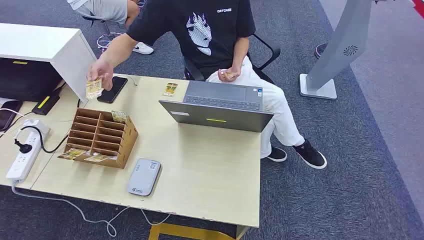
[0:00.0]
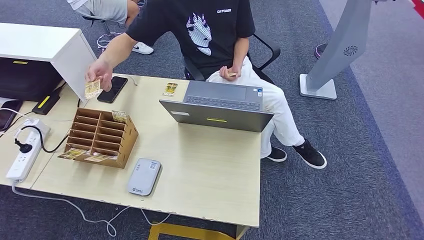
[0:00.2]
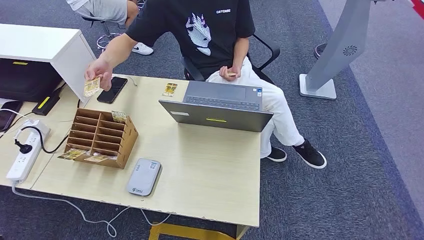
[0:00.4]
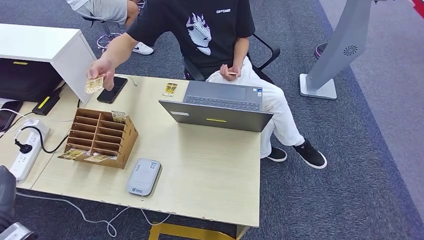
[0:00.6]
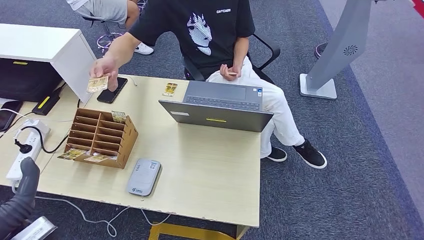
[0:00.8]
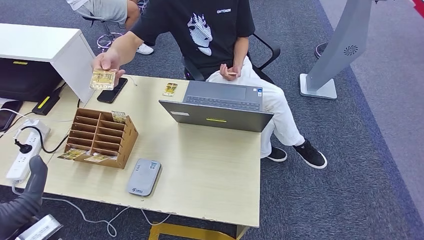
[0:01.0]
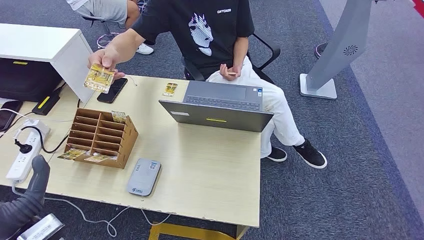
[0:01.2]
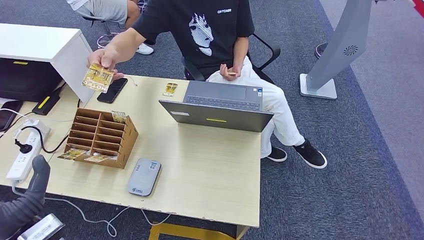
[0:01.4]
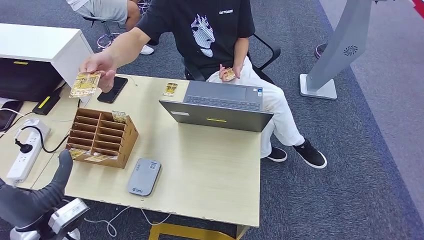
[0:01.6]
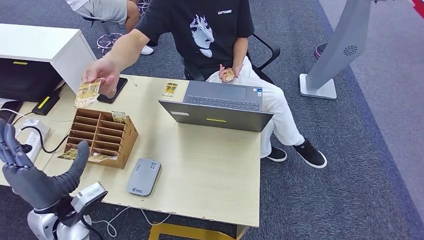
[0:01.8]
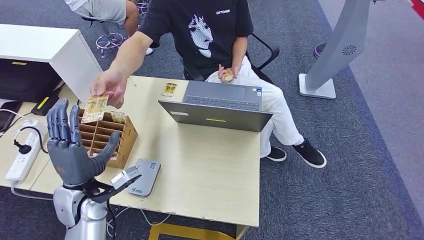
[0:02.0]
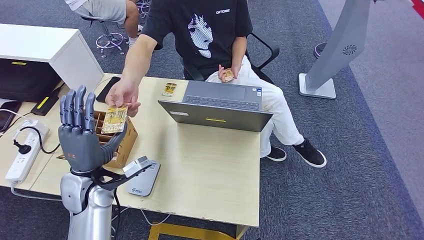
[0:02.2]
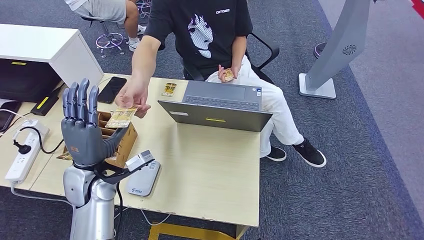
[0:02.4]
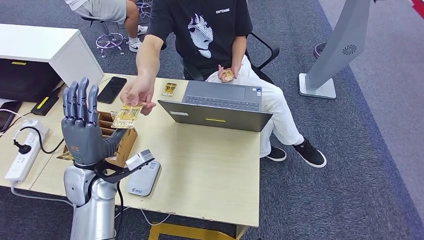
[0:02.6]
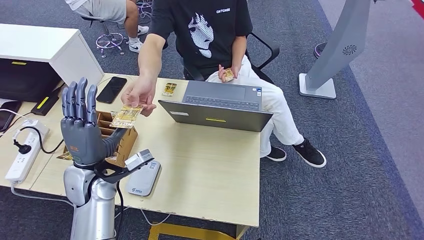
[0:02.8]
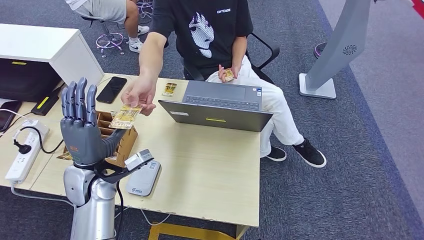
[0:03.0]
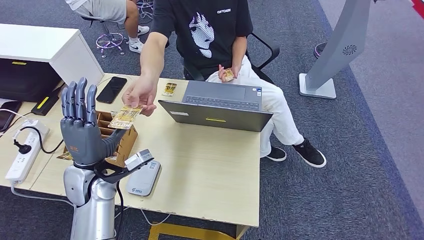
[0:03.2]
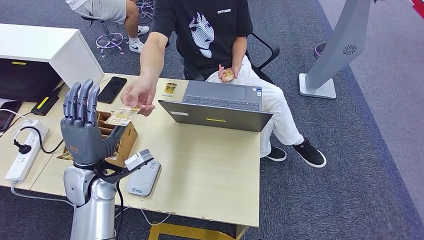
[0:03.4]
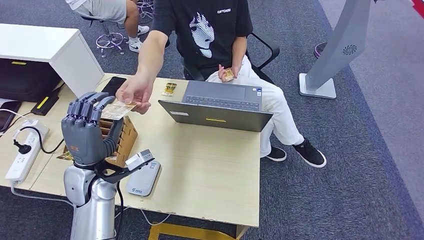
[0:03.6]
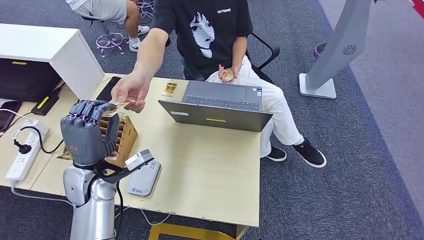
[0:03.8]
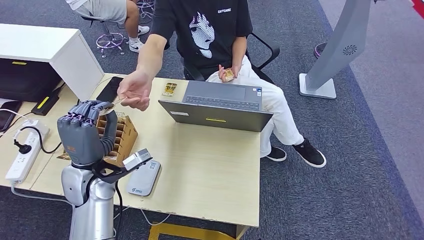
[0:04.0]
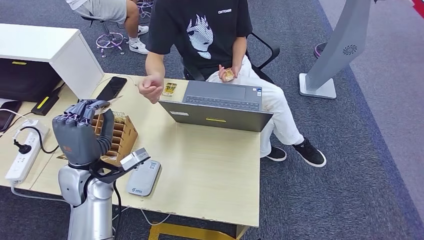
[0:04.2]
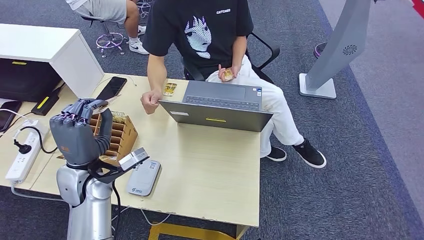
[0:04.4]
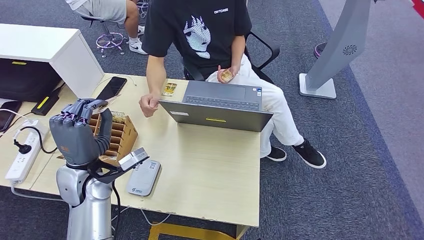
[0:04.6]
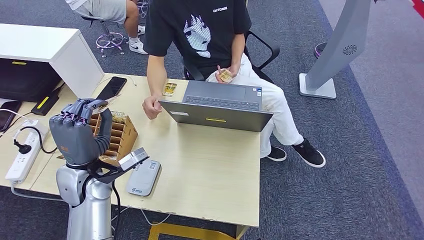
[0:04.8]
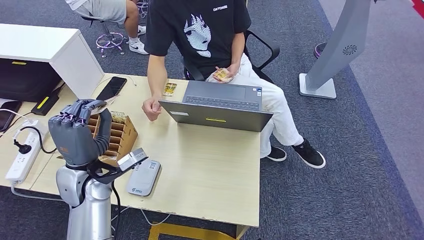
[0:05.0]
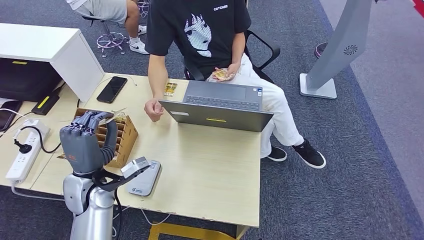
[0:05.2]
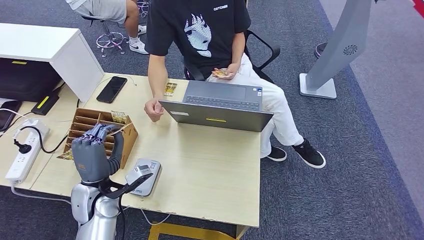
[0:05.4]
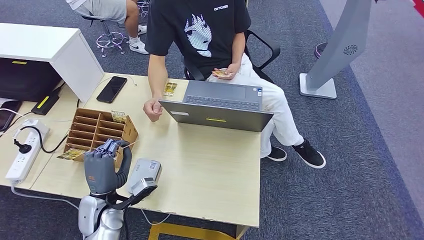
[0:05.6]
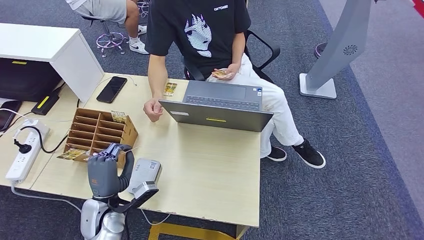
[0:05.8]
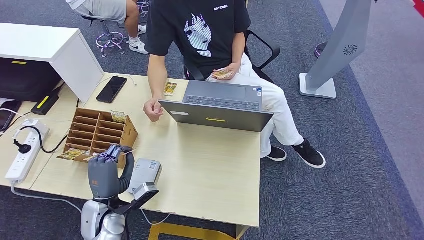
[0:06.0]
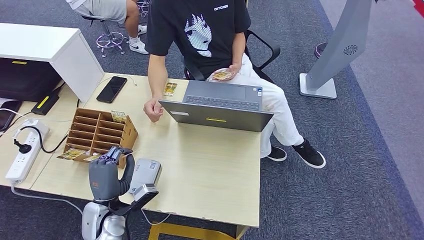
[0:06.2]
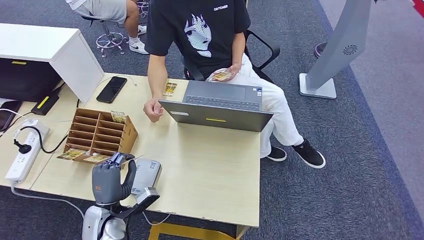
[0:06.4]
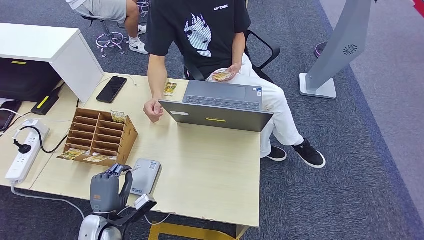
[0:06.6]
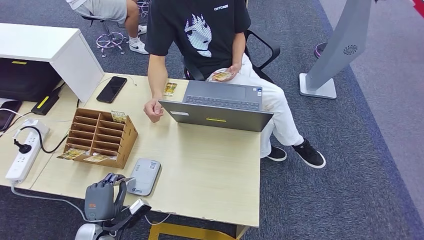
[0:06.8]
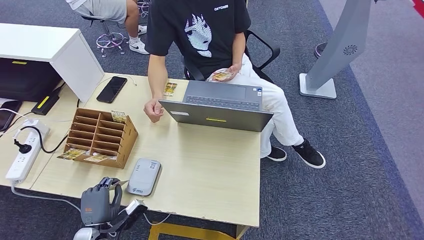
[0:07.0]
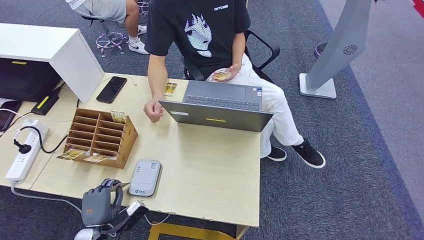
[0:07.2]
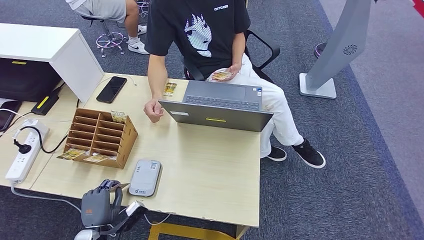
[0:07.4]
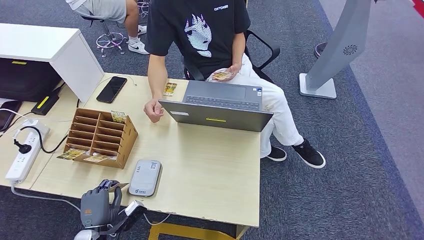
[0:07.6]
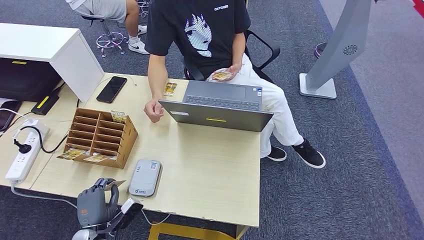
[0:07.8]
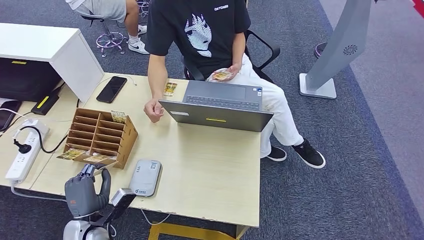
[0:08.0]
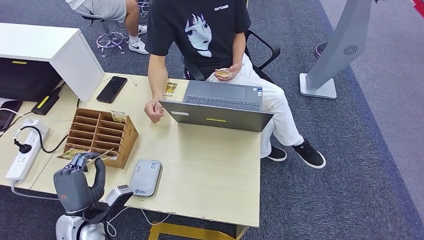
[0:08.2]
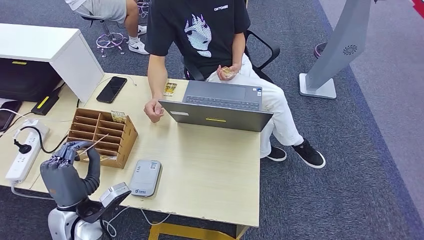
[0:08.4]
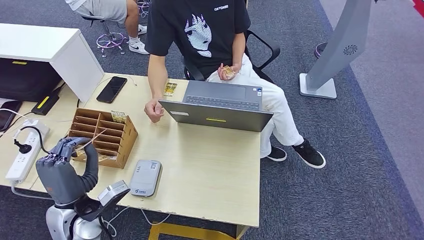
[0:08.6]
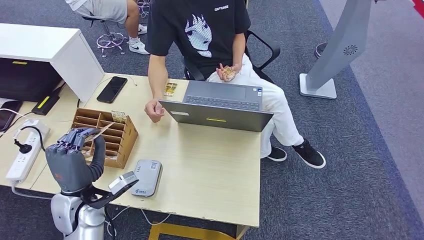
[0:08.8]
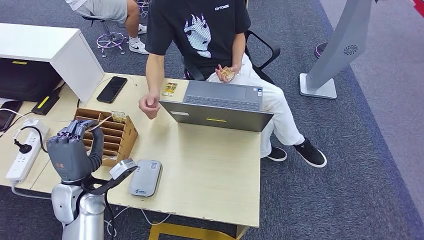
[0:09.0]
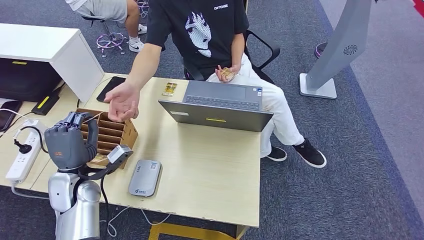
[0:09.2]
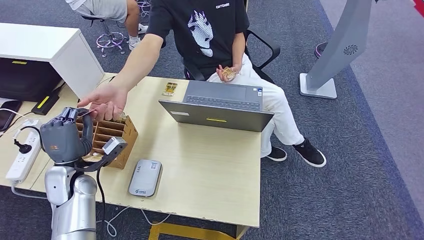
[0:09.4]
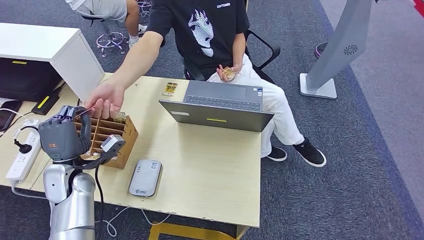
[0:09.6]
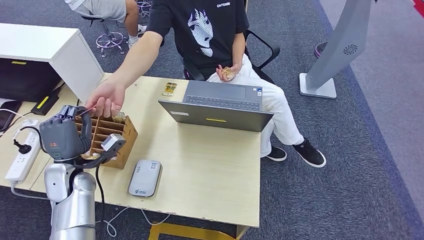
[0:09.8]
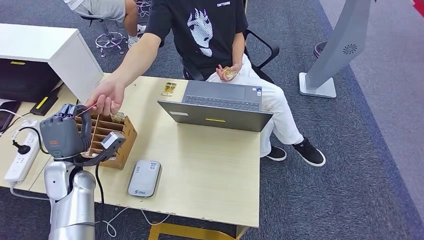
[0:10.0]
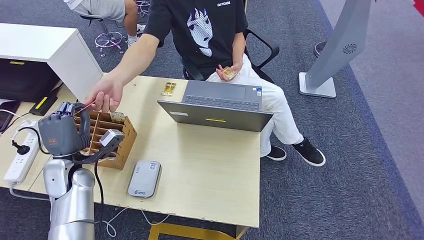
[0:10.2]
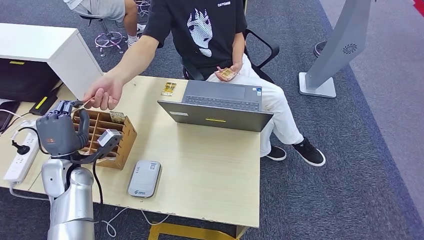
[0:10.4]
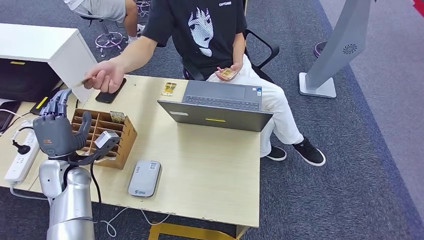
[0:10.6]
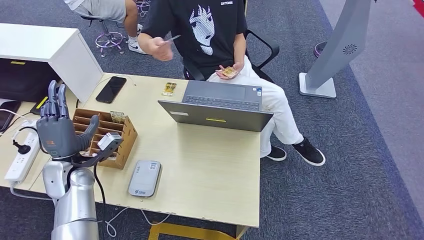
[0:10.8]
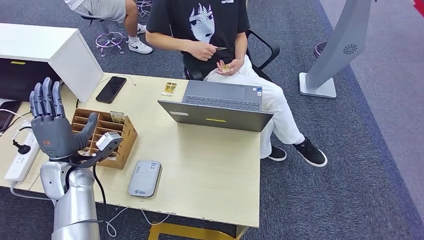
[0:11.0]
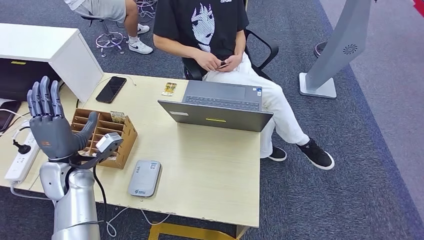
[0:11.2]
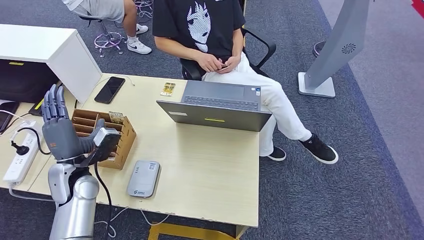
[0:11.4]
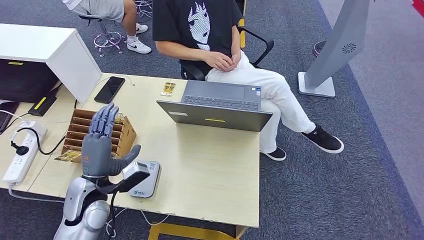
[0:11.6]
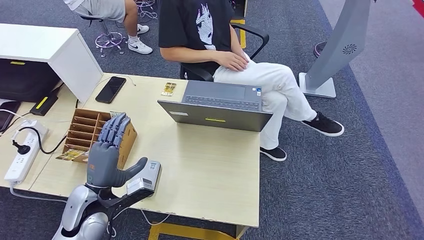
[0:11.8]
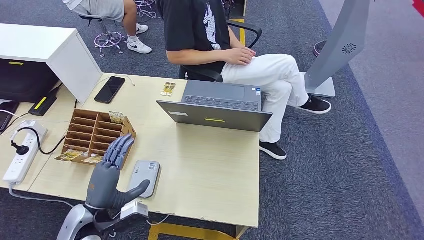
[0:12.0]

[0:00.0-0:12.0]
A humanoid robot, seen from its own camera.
Step, 0.0 to 5.0 s: Take the ID card from the person's hand.
Step, 5.2 to 6.8 s: Place the ID card on the card reader.
Step, 7.0 to 10.8 s: Hand the ID card to the person.
1.6 to 3.0 s: The left hand moves forward, some 15 cm.
3.0 to 4.4 s: Neither hand changes place.
4.4 to 6.0 s: The left hand moves downward and backward, some 15 cm.
6.0 to 7.6 s: The left hand is displaced downward and backward by about 10 cm.
7.6 to 9.0 s: The left hand shifts some 20 cm upward and forward.
9.0 to 10.4 s: The left hand heads to the left and forward, covering about 10 cm.

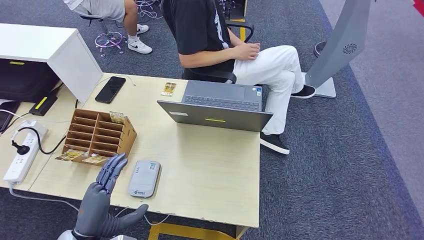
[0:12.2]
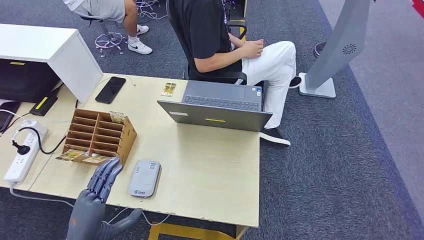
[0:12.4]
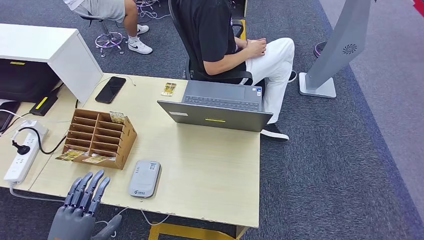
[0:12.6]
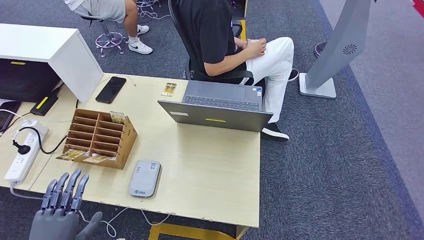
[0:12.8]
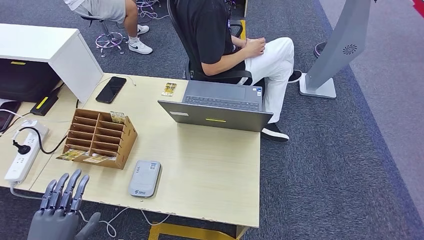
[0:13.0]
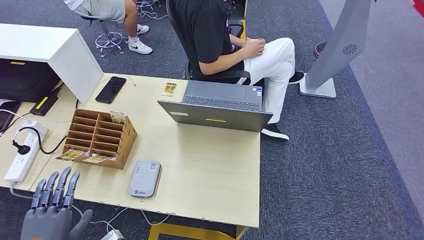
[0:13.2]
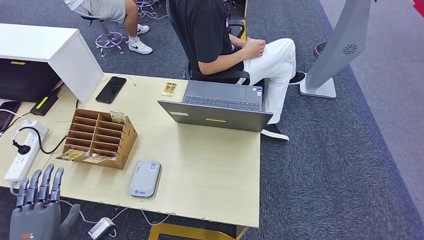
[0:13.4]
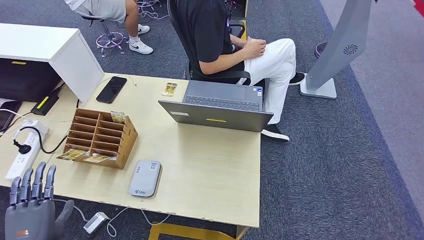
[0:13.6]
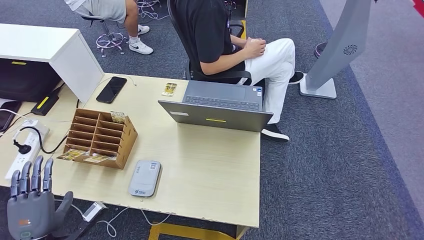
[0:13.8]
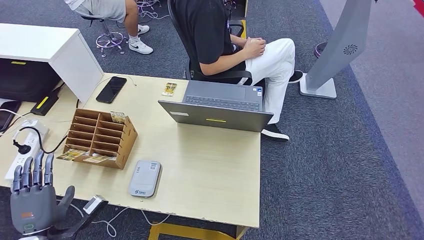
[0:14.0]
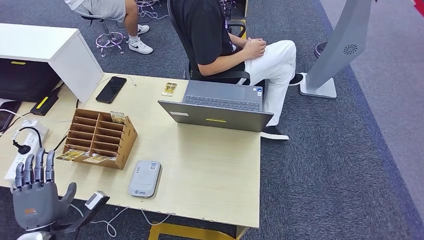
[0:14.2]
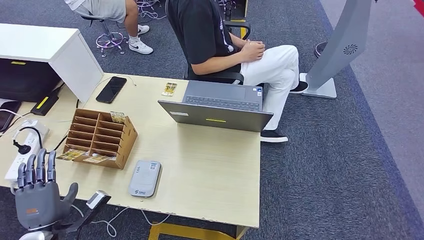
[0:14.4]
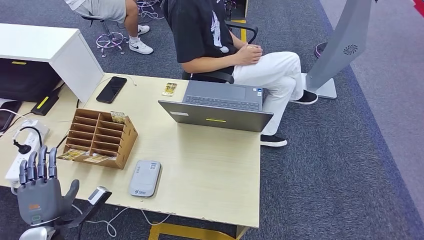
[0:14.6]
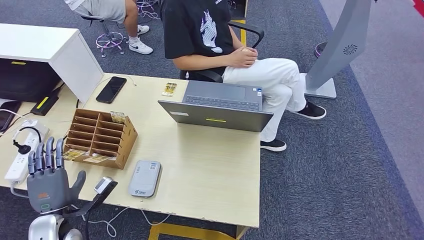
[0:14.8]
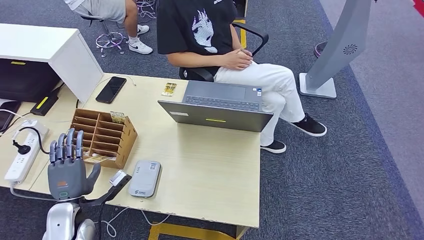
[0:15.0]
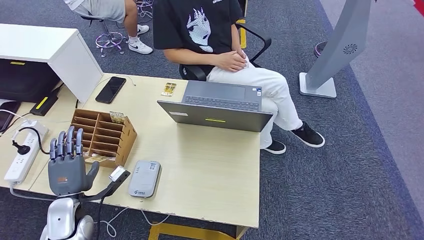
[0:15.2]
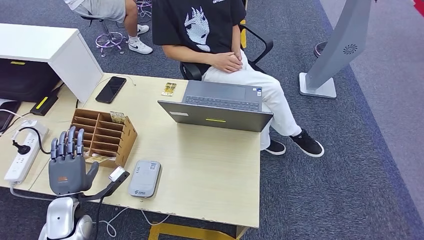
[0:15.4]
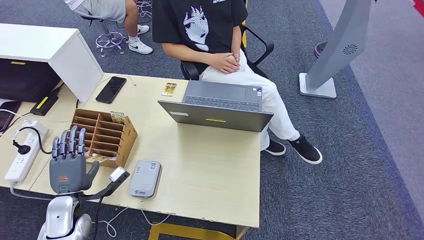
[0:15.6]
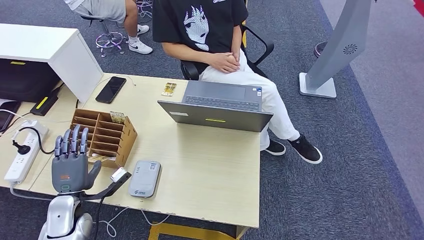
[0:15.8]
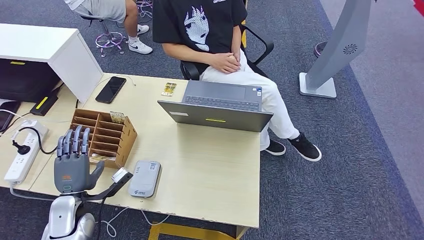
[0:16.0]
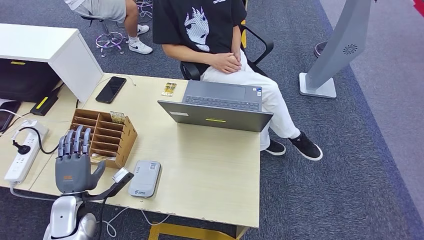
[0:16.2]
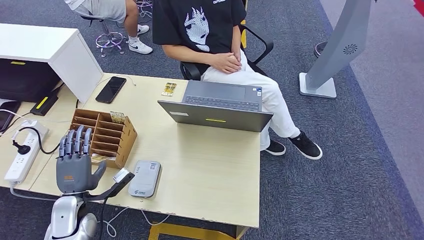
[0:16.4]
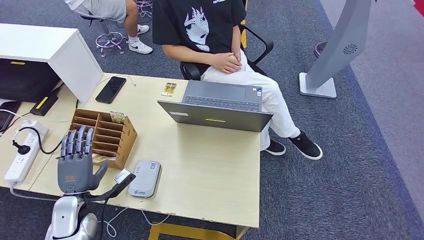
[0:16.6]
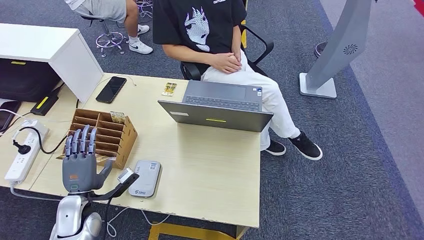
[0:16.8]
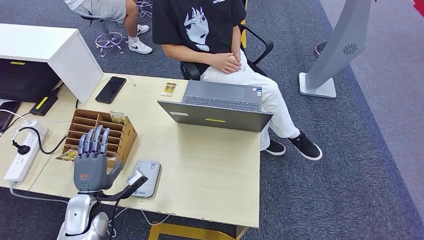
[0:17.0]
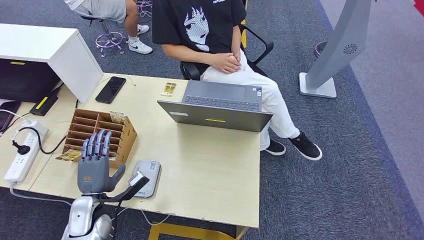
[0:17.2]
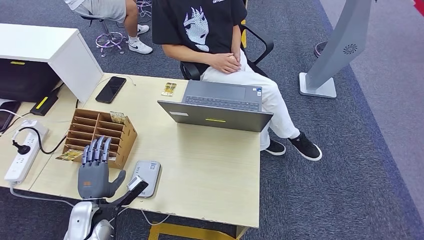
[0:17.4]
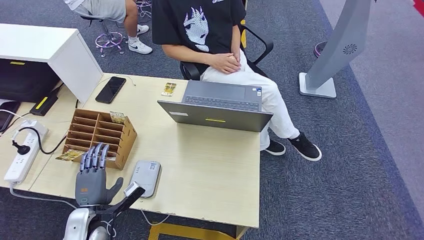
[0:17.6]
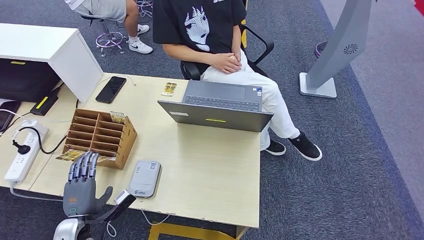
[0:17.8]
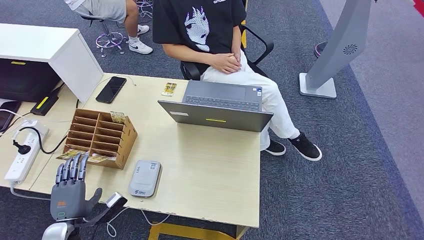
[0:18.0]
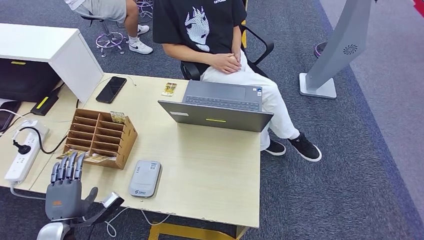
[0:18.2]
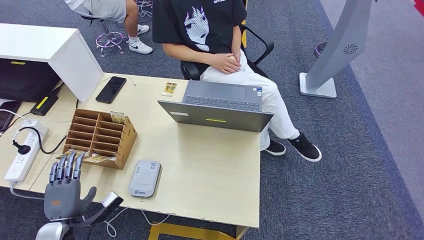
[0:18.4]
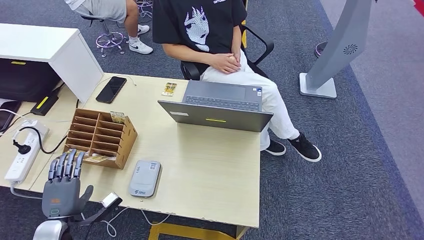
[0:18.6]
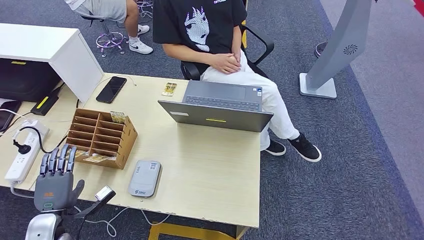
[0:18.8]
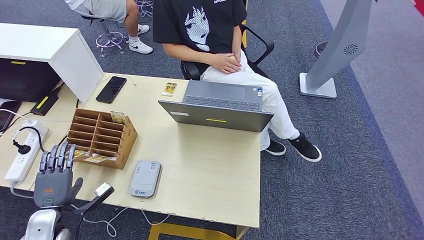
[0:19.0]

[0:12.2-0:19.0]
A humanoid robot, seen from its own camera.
12.2 to 13.6 s: The left hand goes about 10 cm to the left.
13.6 to 15.0 s: The left hand is displaced forward by some 10 cm.
15.0 to 16.2 s: The hands make only small movements.
16.2 to 17.6 s: The left hand changes place by about 5 cm.
17.6 to 19.0 s: The left hand travels to the left by about 10 cm.
